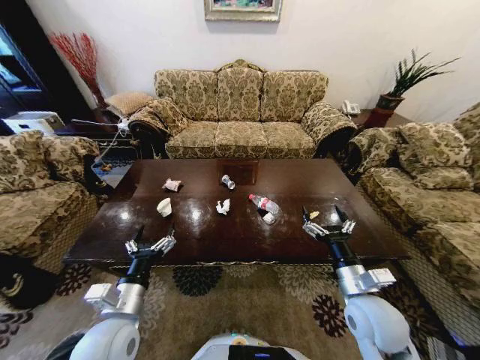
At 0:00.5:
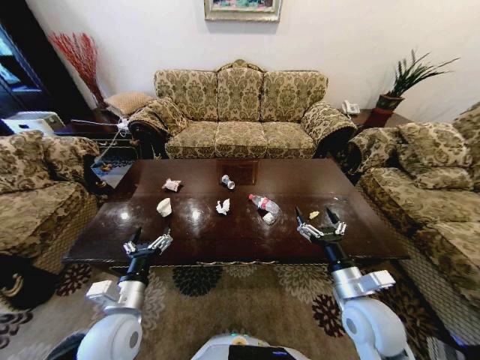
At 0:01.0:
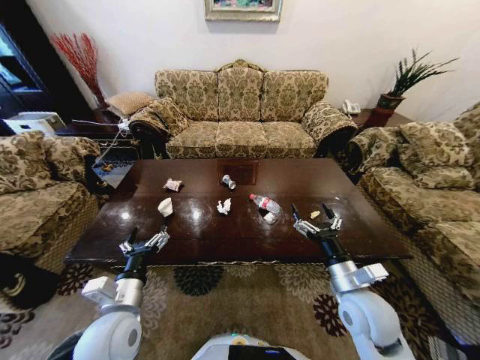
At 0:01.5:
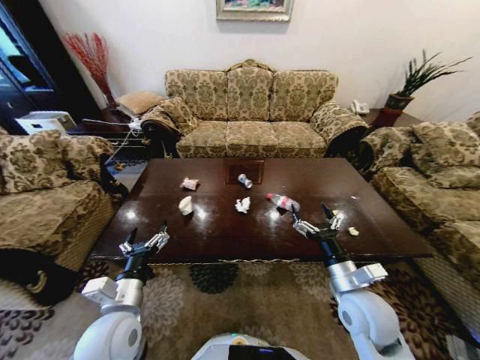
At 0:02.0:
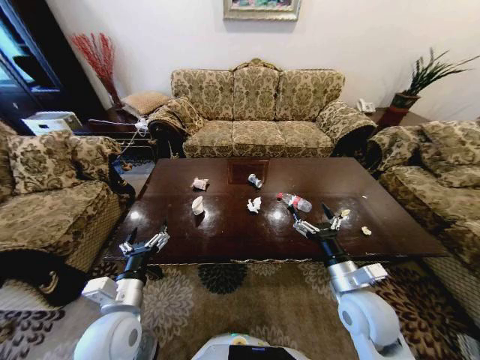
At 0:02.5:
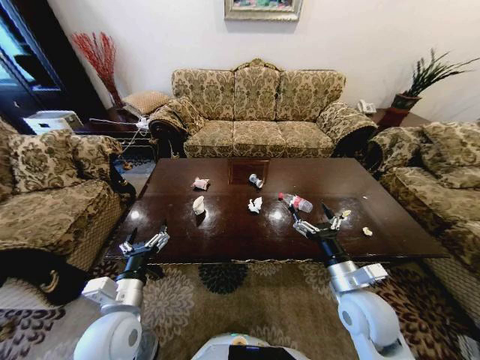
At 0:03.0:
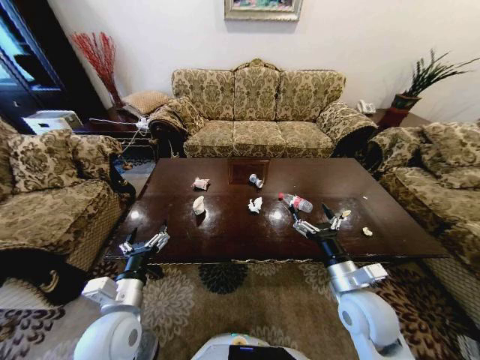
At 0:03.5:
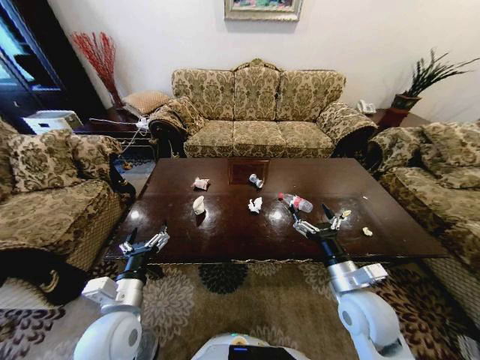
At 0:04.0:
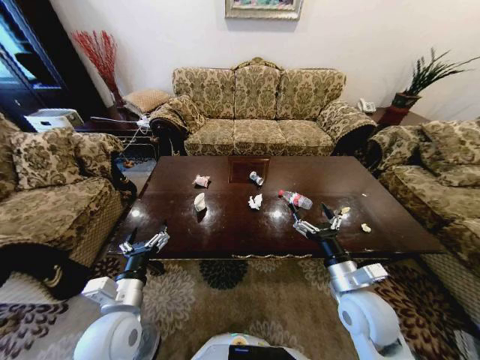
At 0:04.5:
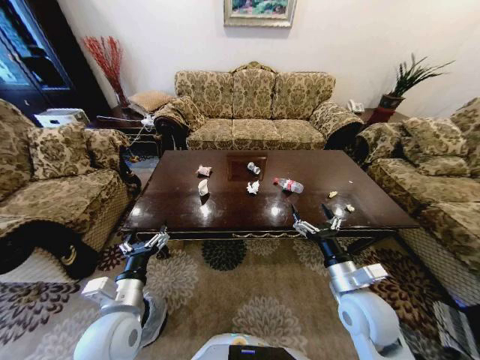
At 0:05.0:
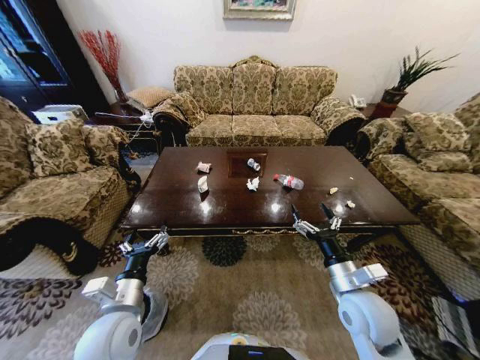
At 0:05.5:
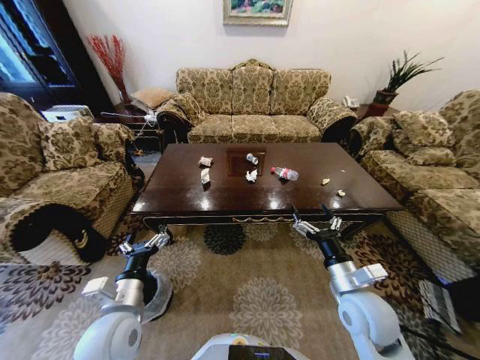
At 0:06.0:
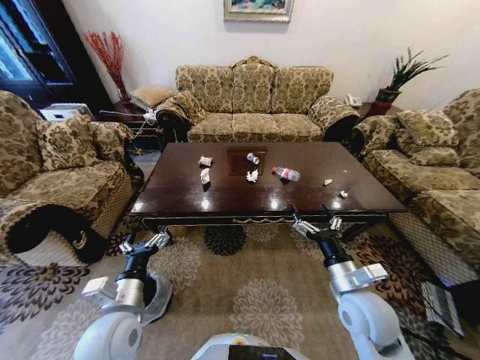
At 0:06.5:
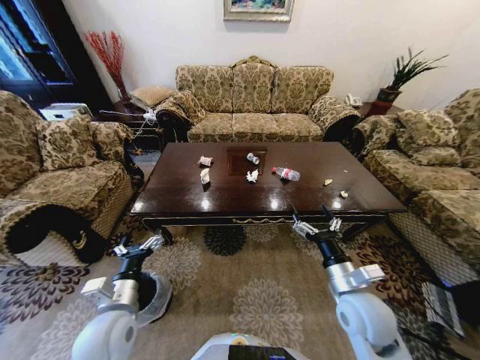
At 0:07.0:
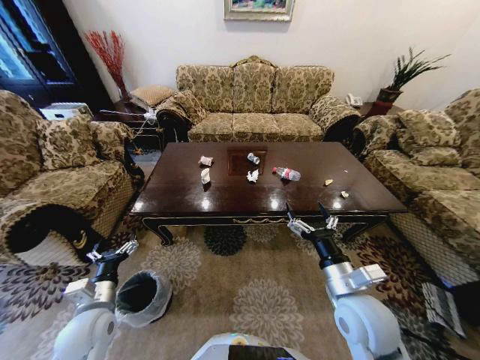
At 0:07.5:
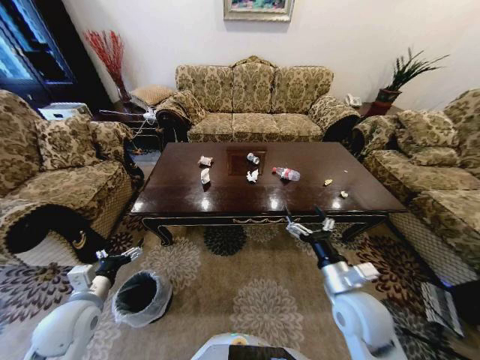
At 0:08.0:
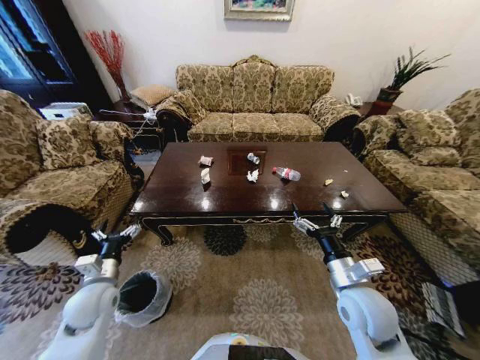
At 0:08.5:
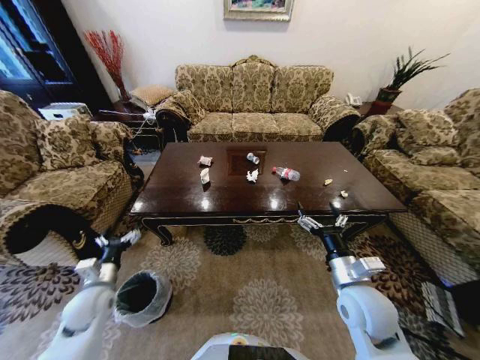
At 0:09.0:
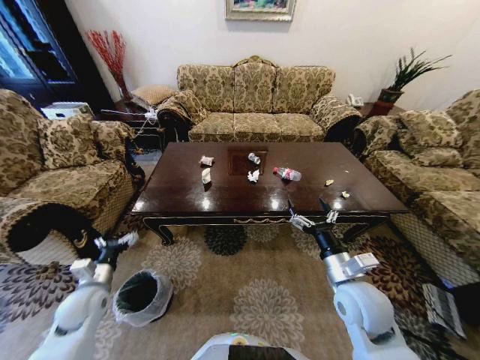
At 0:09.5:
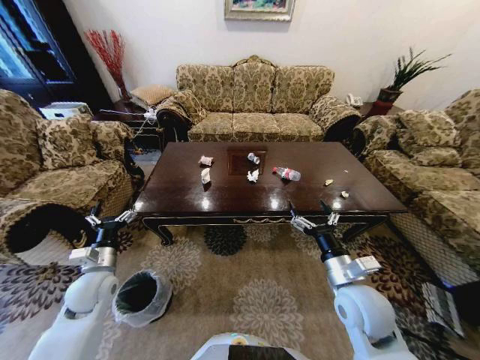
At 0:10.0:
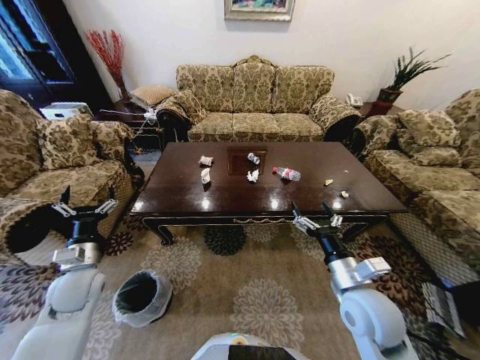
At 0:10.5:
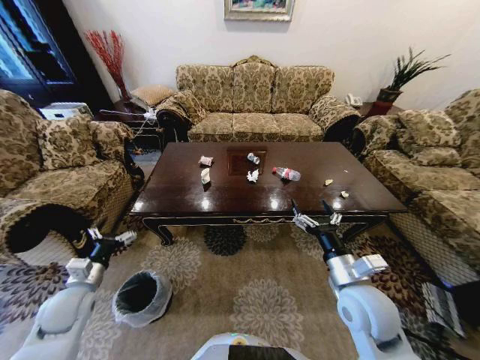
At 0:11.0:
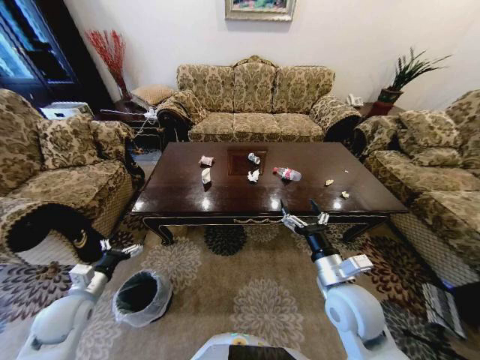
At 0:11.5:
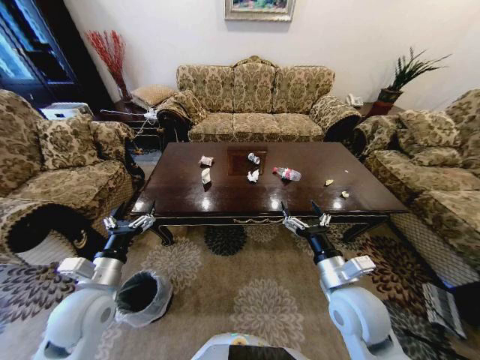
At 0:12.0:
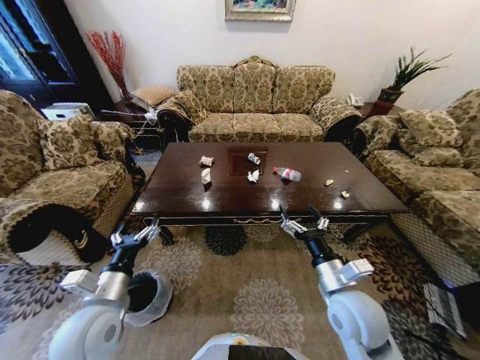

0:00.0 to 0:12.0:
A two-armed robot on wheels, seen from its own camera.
Task of the whole recording: Move to the front of the table and place the trash on the table into the trash bin.
0:02.0 to 0:04.0: The two grippers keep their place.
0:06.0 to 0:08.0: The left gripper heads to the left, forward and downward, covering approximately 15 cm.
0:08.0 to 0:10.0: The left gripper ends up some 5 cm from where it was.
0:10.0 to 0:12.0: The left gripper heads to the right and backward, covering roughly 15 cm.

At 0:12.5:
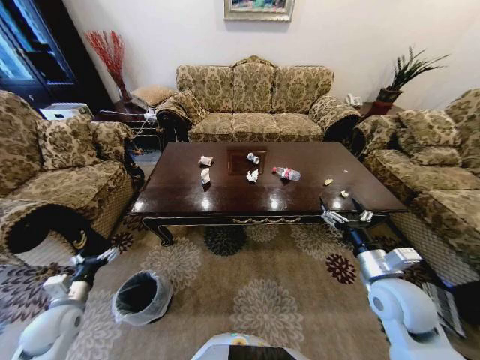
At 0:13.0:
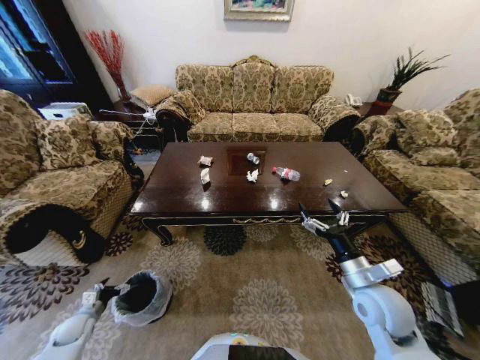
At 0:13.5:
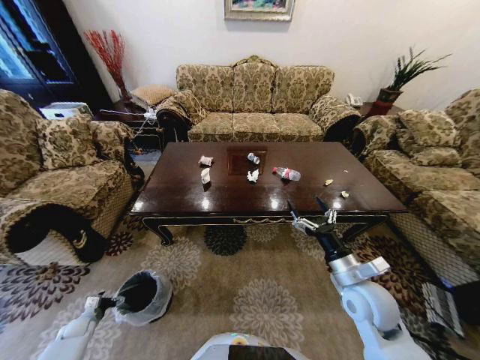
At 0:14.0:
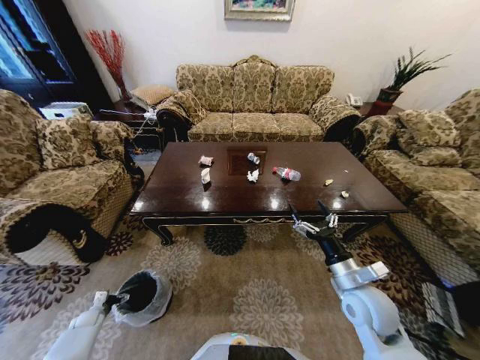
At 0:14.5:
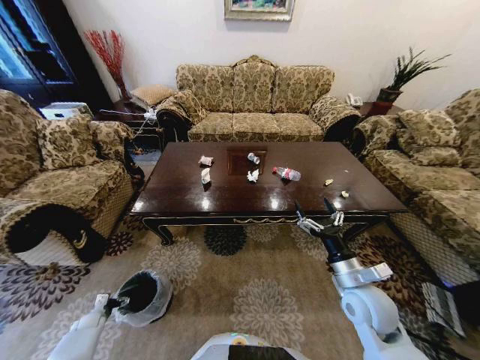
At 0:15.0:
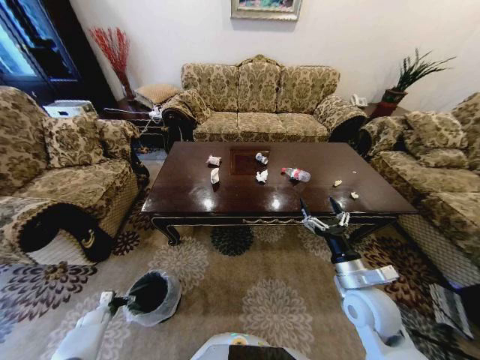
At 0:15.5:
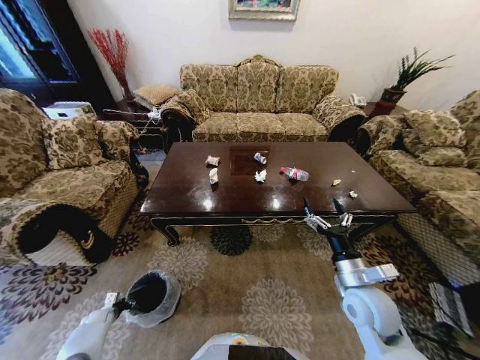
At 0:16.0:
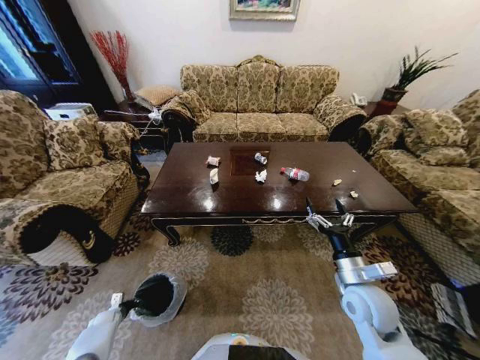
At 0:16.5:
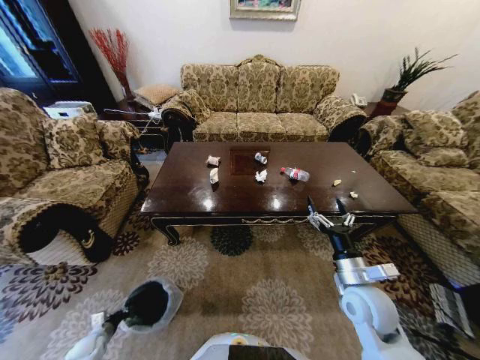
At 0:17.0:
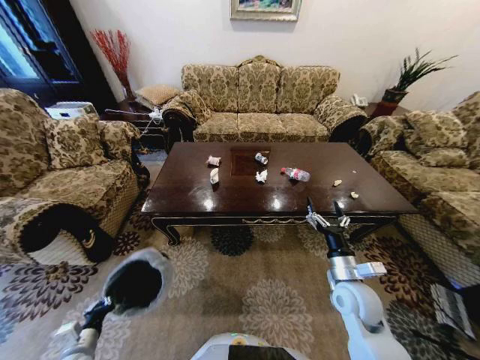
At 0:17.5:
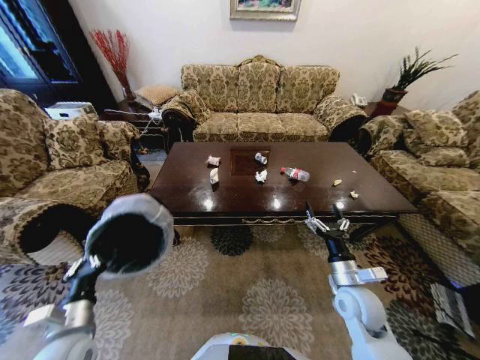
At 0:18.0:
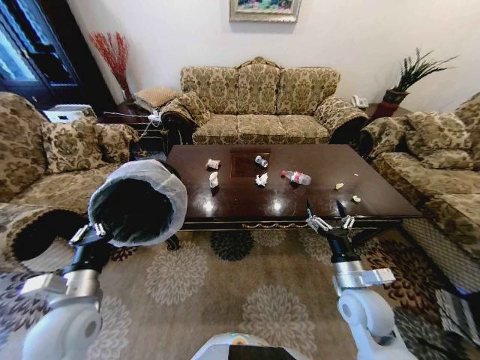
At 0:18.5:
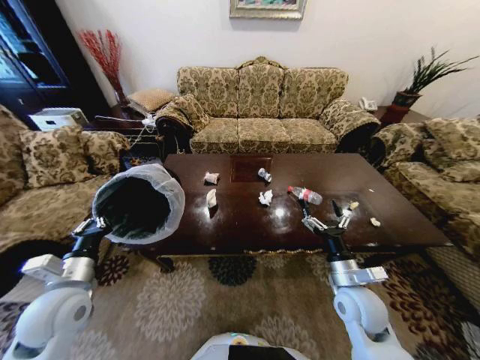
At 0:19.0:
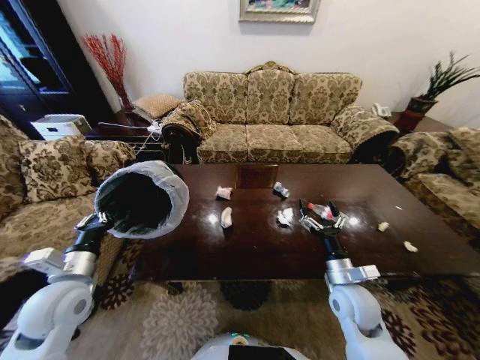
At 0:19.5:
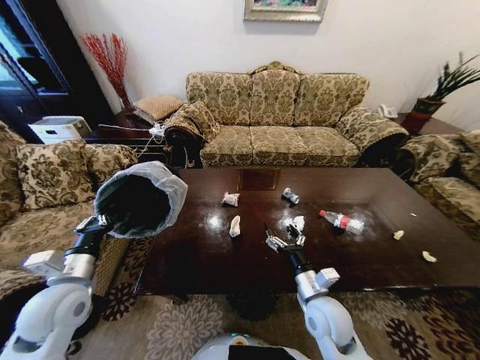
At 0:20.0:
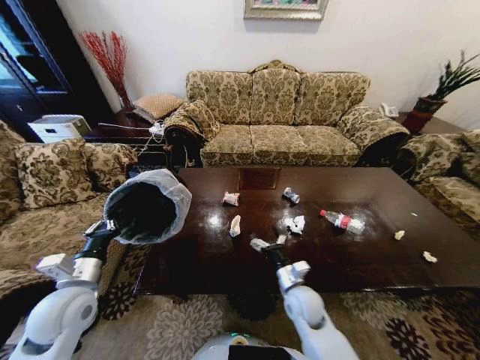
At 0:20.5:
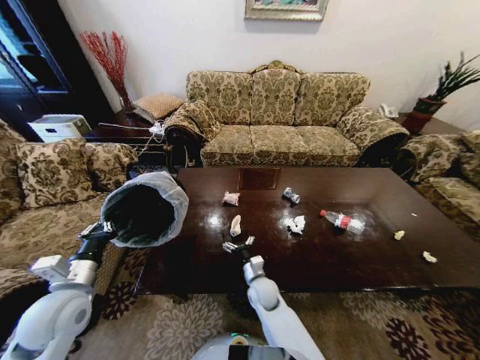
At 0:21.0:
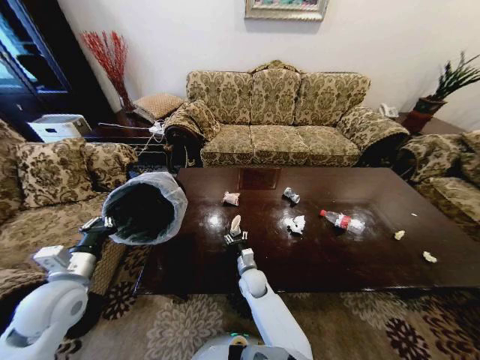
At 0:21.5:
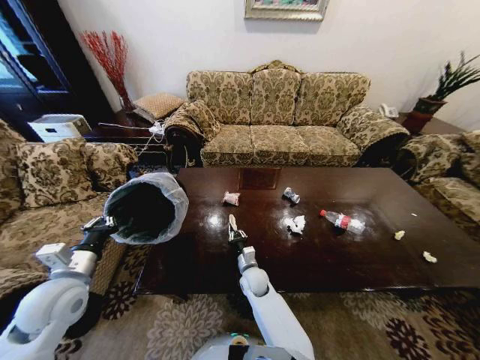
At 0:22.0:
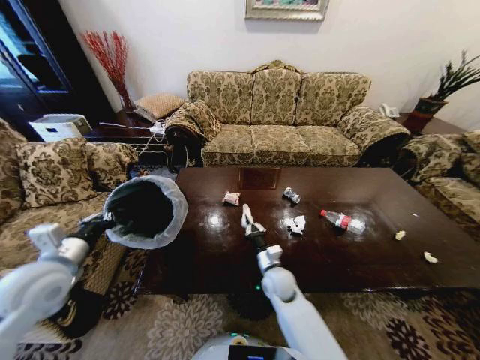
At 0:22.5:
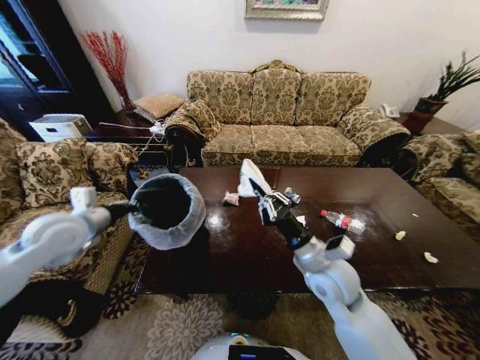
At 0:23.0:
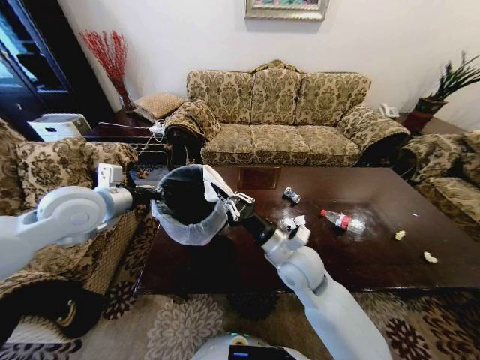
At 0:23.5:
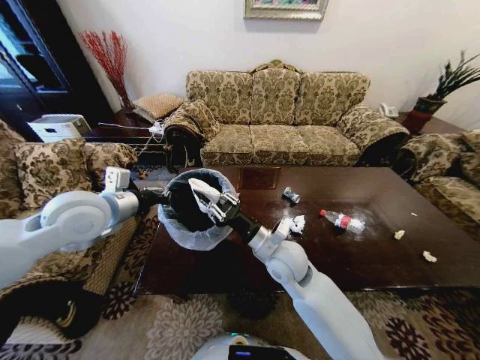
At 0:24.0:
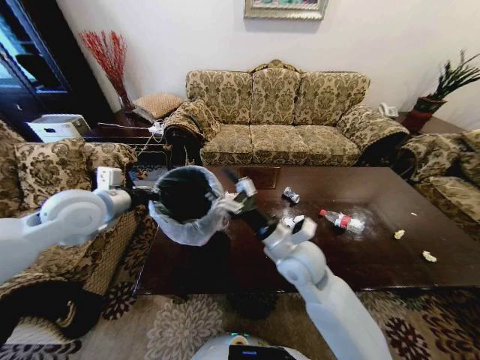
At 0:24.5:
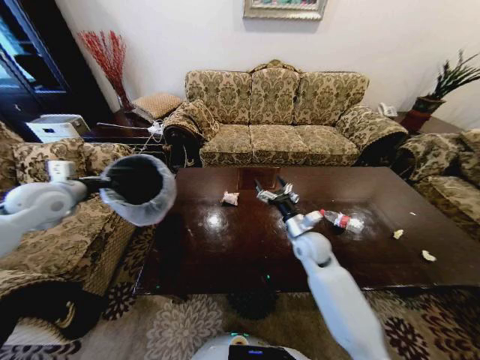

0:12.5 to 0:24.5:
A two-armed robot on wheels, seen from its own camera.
Task of the whole recording: Move to the front of the table and place the trash on the table into the trash bin.
0:12.5 to 0:14.5: The right gripper ends up some 5 cm from where it was, while the left gripper shifts approximately 25 cm downward.
0:14.5 to 0:16.5: The left gripper is displaced backward by some 5 cm, and closes.
0:16.5 to 0:18.5: The left gripper moves upward and to the right, approximately 40 cm.
0:18.5 to 0:20.5: The right gripper heads to the left and downward, covering roughly 25 cm.
0:20.5 to 0:22.5: The right gripper is displaced upward and to the right by roughly 25 cm, and closes; the left gripper heads forward and upward, covering roughly 15 cm.
0:22.5 to 0:24.5: The right gripper is displaced forward and downward by about 15 cm, and opens; the left gripper travels to the left and forward by roughly 10 cm.

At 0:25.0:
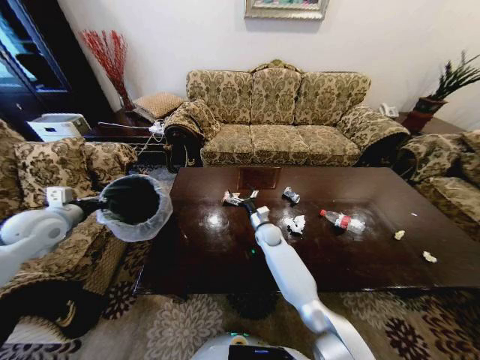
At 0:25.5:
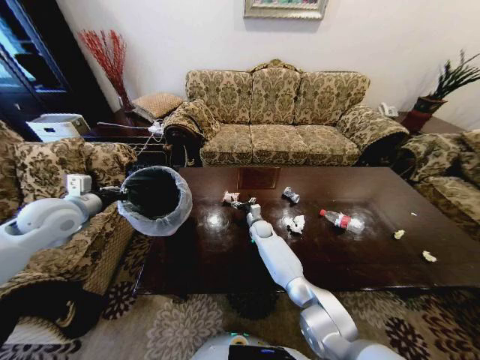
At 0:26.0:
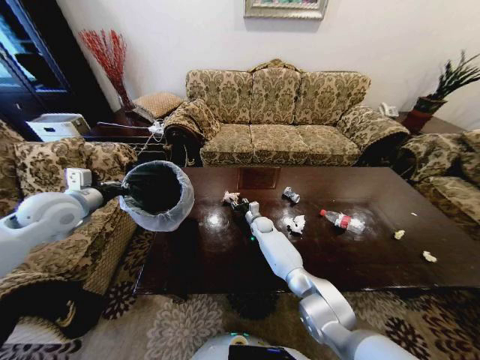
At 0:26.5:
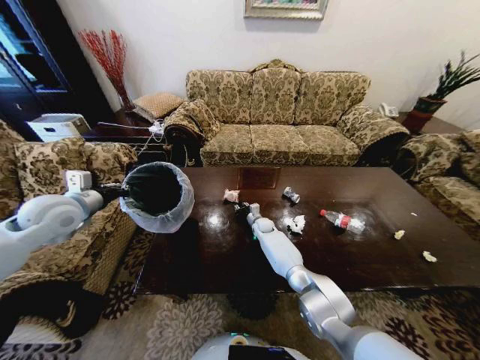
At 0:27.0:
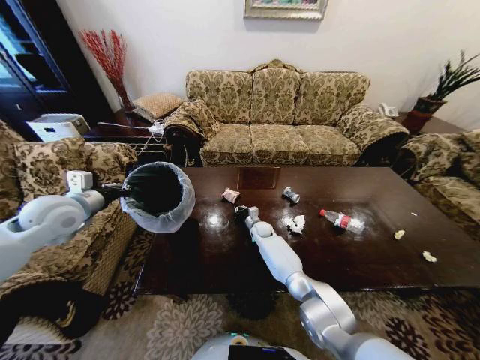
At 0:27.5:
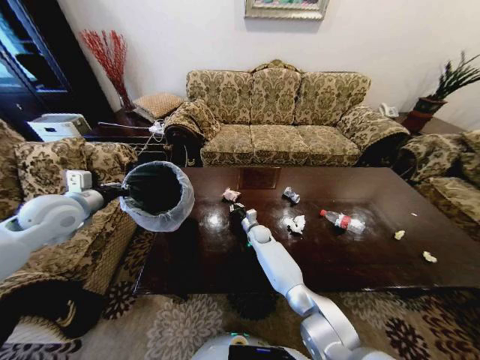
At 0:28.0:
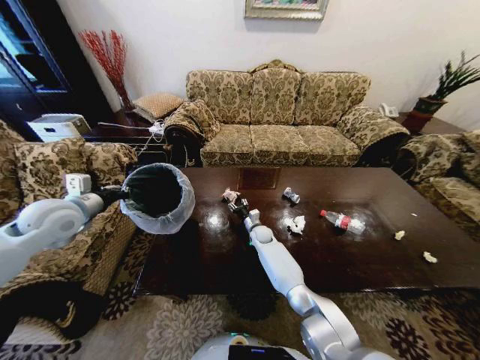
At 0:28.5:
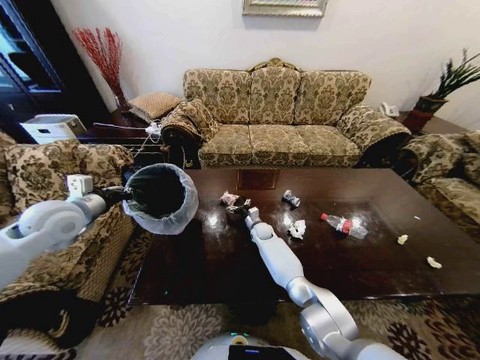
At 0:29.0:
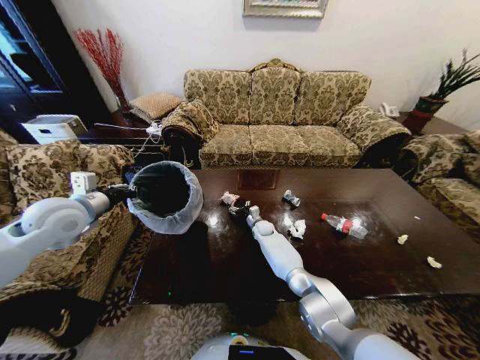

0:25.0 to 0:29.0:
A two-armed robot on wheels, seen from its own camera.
Task of the whole recording: Move to the front of the table and place the trash on the table into the trash bin.
0:25.0 to 0:27.0: The right gripper travels downward and forward by some 10 cm, and closes its fingers; the left gripper shifts roughly 5 cm to the right.
0:27.0 to 0:29.0: The right gripper opens.
